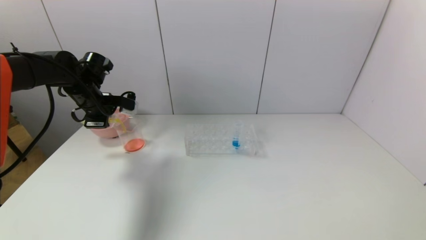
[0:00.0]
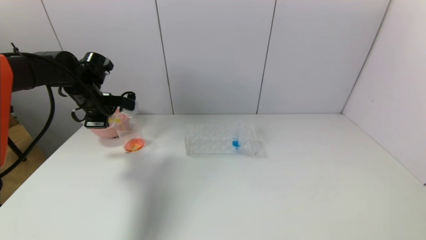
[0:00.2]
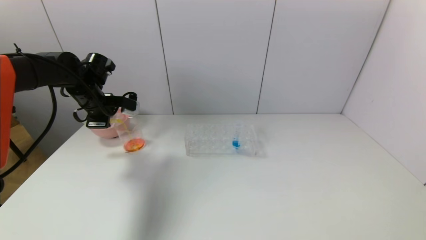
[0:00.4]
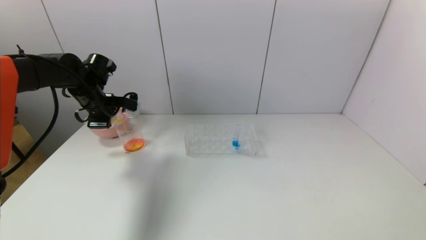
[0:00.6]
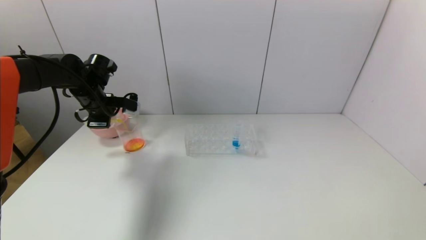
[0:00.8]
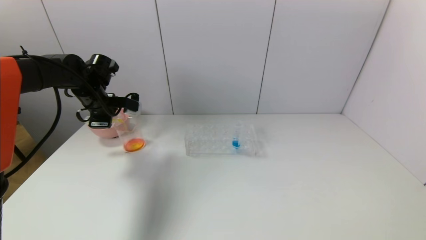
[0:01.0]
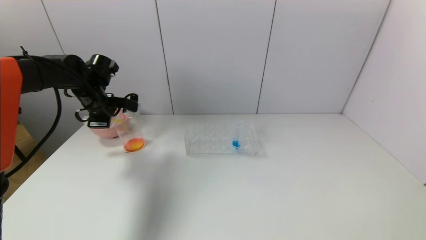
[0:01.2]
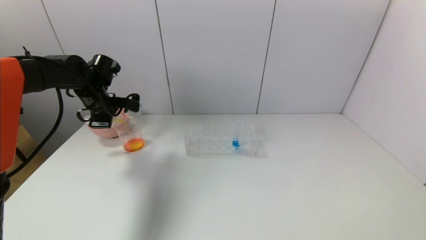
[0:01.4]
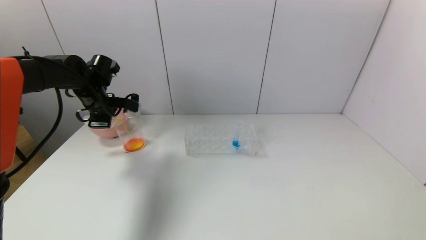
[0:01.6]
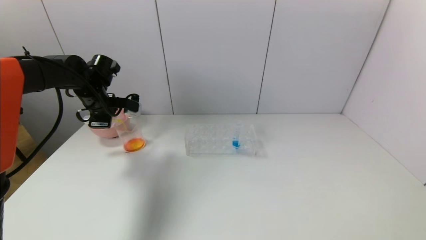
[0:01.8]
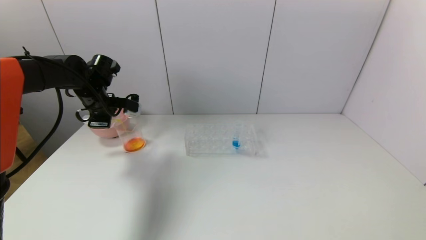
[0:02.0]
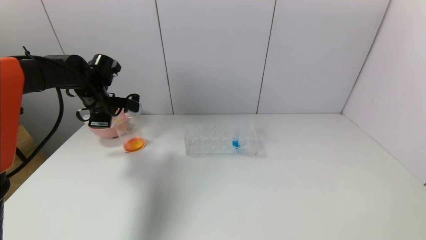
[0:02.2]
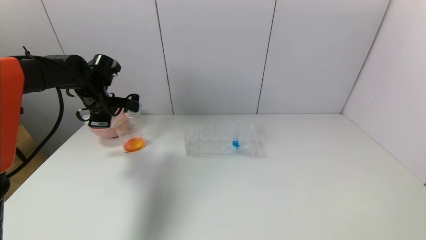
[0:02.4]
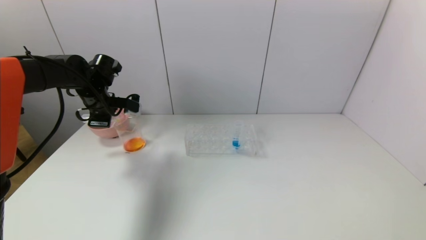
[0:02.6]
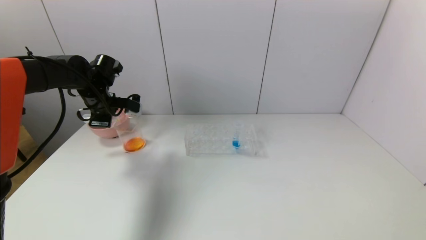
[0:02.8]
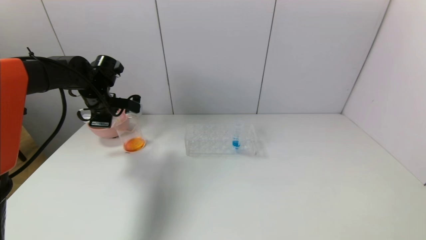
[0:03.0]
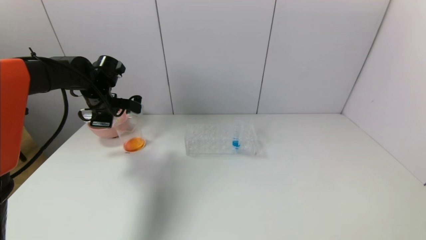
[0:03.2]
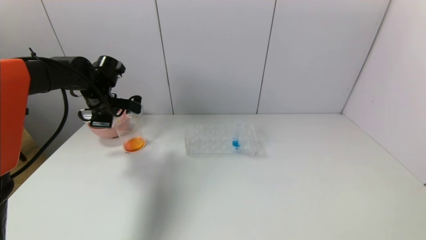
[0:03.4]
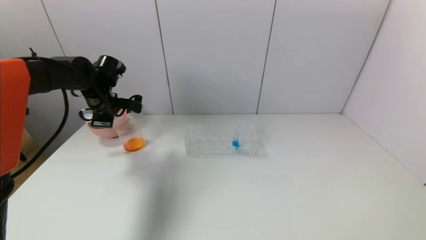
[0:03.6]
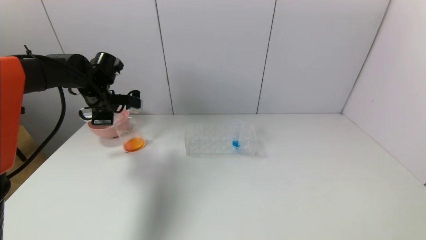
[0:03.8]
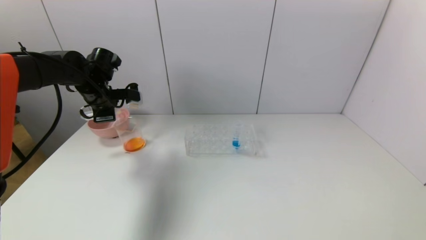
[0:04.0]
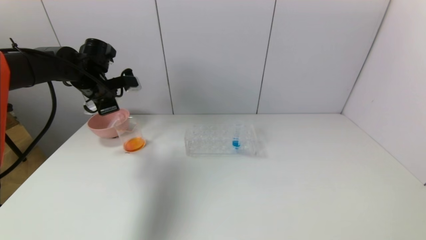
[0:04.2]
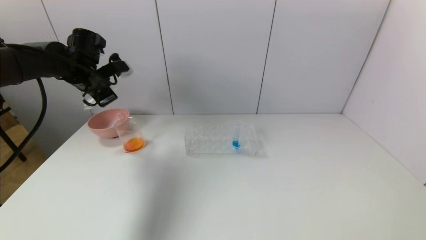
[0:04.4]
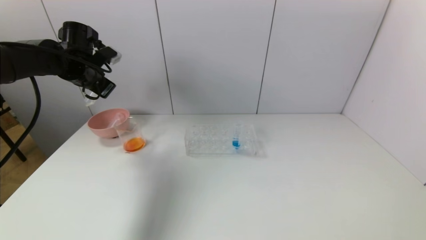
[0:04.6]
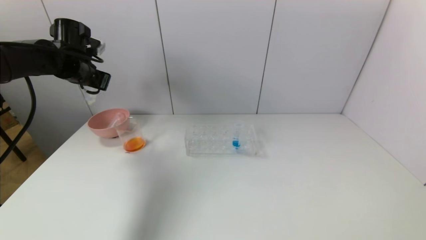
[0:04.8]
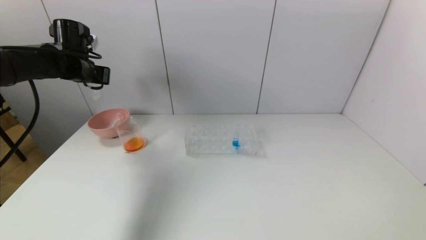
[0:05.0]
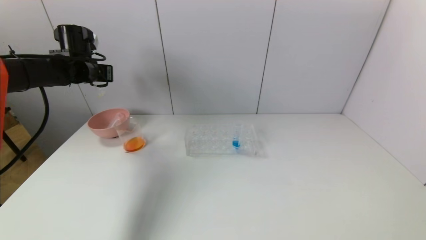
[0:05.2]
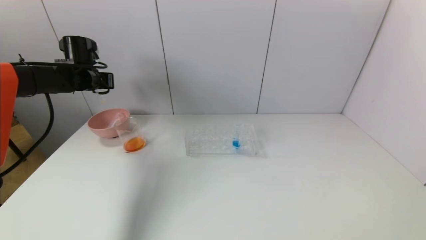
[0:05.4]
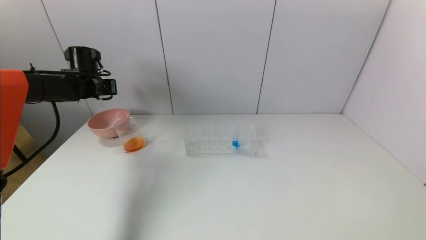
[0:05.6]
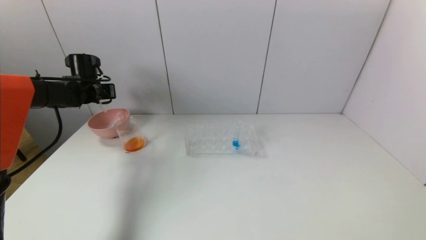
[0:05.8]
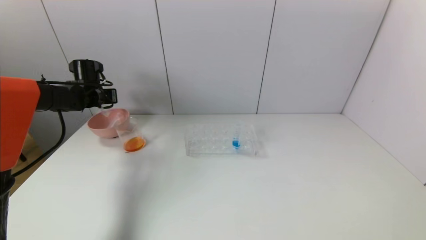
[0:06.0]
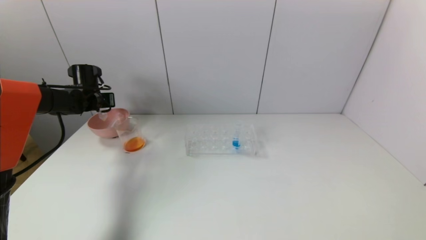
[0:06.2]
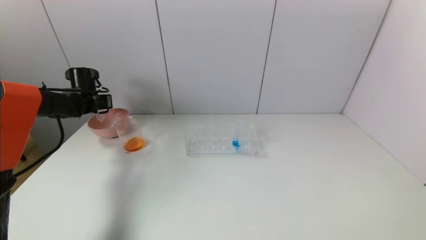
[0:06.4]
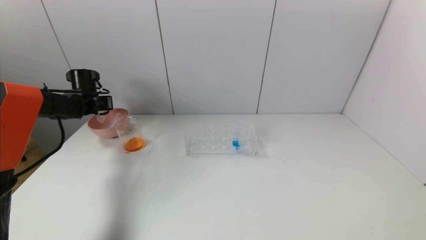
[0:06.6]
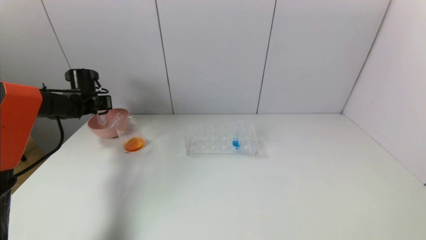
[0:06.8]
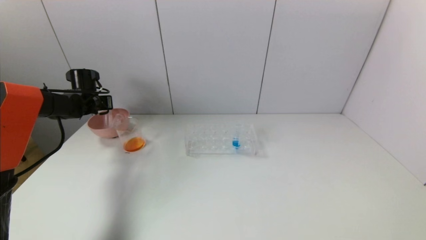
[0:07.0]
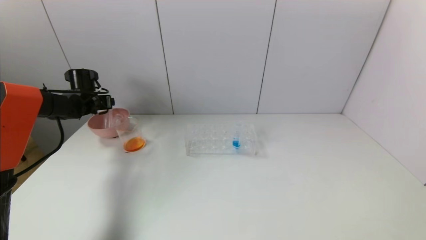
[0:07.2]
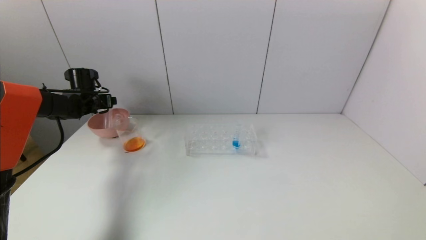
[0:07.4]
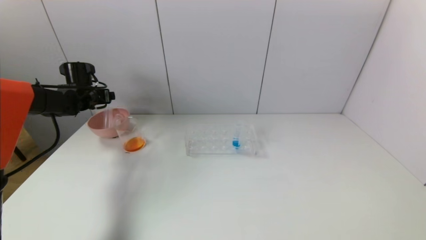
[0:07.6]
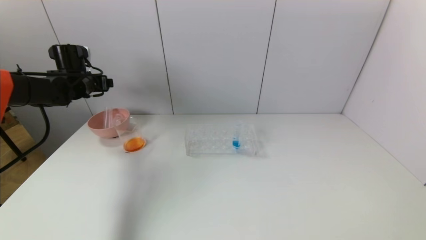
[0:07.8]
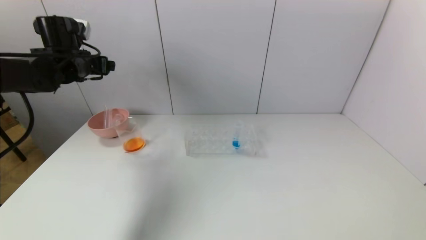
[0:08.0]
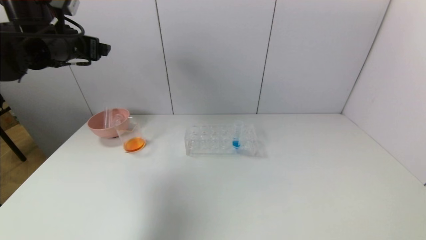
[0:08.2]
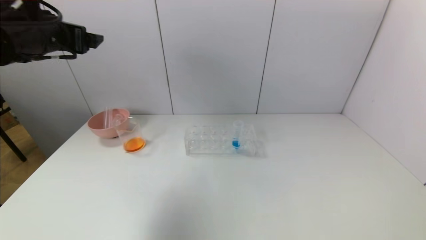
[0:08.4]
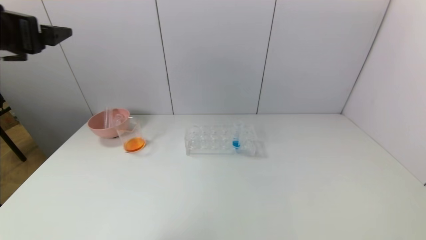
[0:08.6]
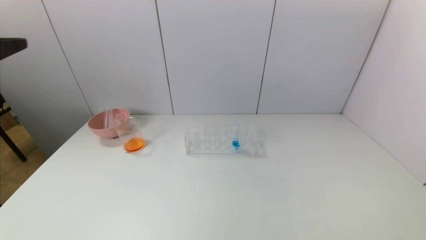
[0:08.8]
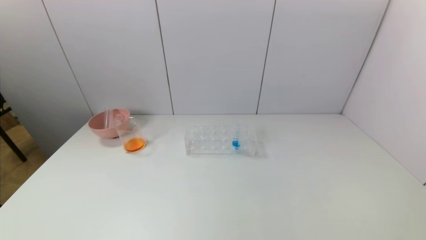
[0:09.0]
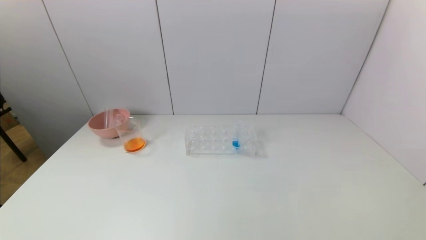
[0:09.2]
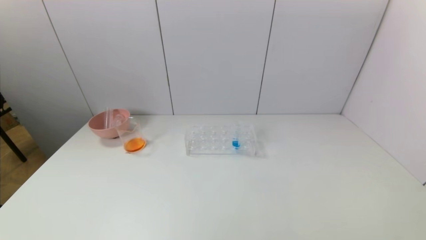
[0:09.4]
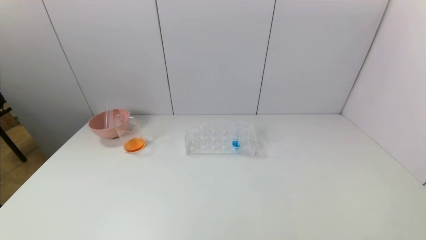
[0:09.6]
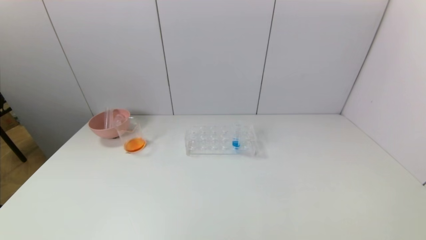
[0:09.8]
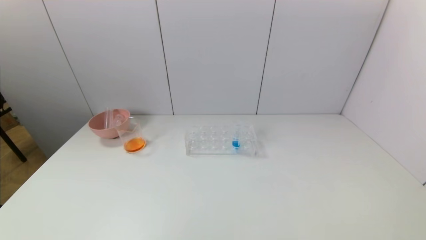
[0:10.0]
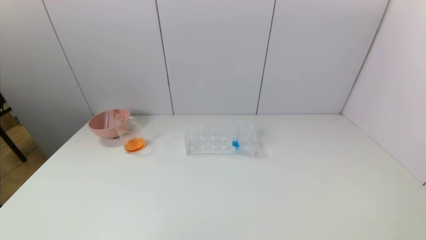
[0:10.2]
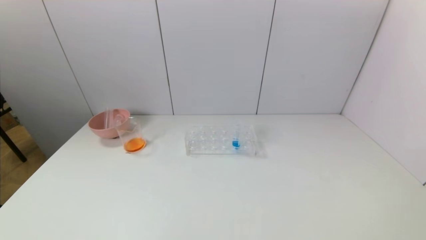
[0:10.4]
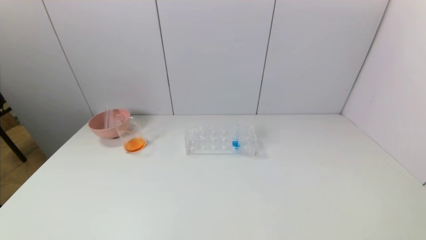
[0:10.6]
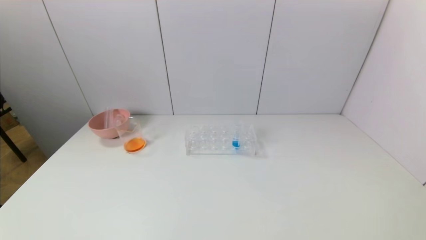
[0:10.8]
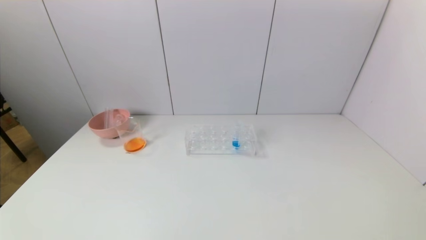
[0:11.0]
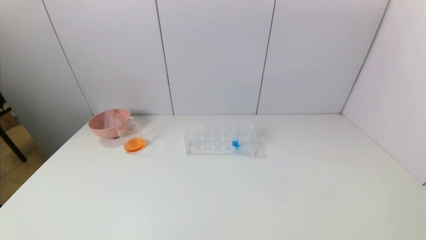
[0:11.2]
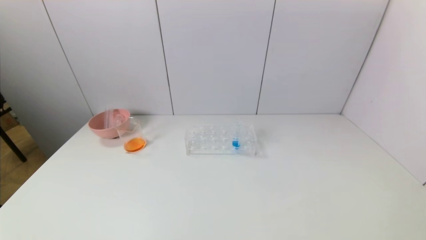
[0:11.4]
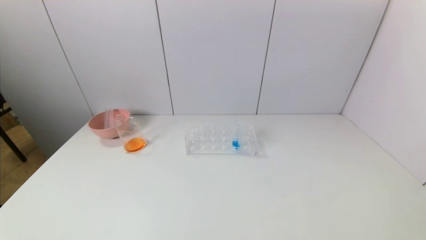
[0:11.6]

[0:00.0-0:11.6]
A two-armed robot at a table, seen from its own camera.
Task of the whole recording: pick up the test tube with yellow pigment and the test tube with red pigment by grippers and pour them into the beaker.
Step, 0:00.0 to 0:03.6: Pour the yellow reagent into the graduated cylinder with the left gripper.
Step, 0:03.8 to 0:07.0: Place the test tube into the pink bowl with the left gripper.
0:00.0 to 0:01.4: The grippers stay close to where they were, moving slightly.
0:01.4 to 0:02.8: The two grippers keep their place.
0:02.8 to 0:04.4: The left gripper changes place by approximately 5 cm.
0:04.4 to 0:05.8: The left gripper heads downward and forward, covering approximately 10 cm.
0:05.8 to 0:07.2: The left gripper changes place by some 5 cm, and opens its fingers.
0:07.2 to 0:08.8: The left gripper shifts some 40 cm backward and upward.
